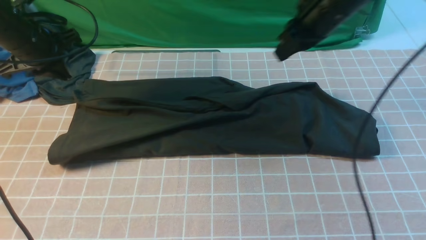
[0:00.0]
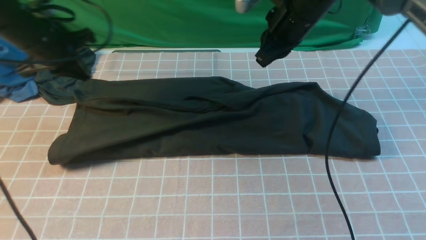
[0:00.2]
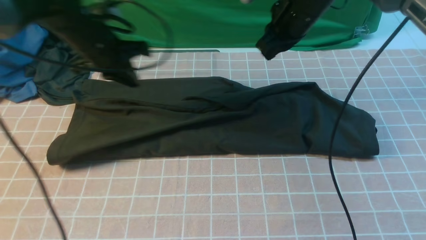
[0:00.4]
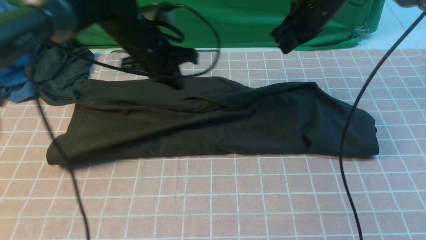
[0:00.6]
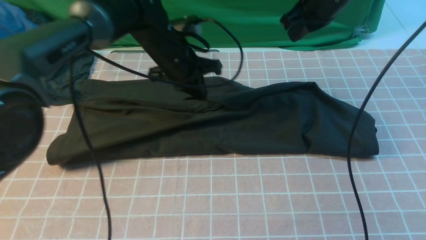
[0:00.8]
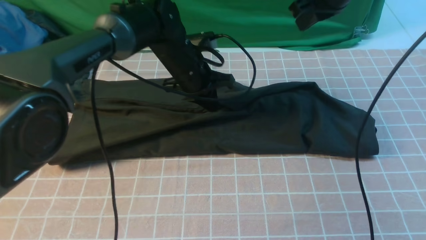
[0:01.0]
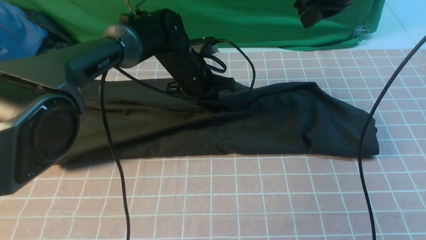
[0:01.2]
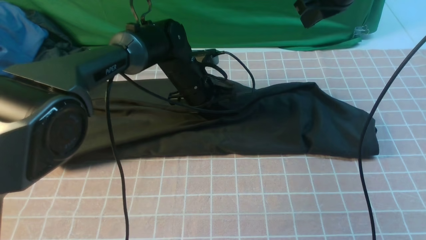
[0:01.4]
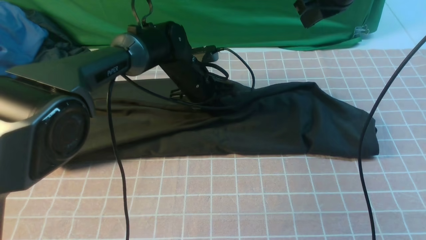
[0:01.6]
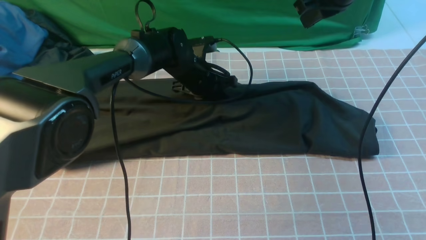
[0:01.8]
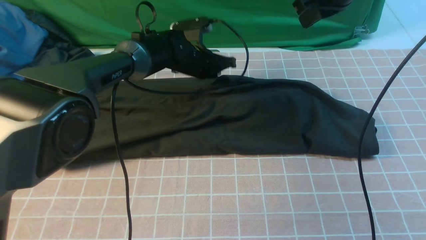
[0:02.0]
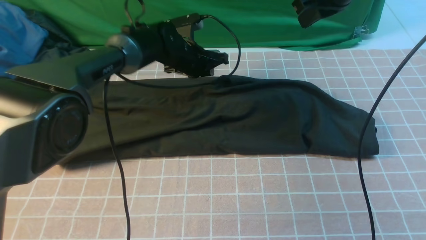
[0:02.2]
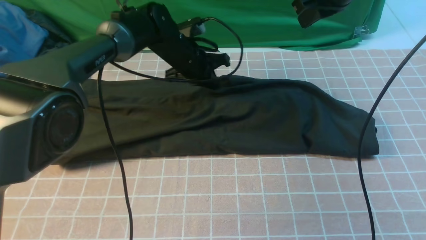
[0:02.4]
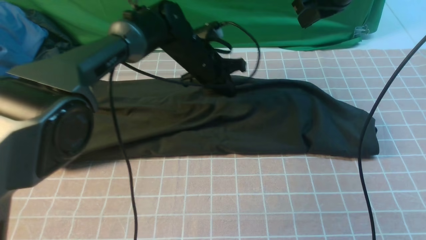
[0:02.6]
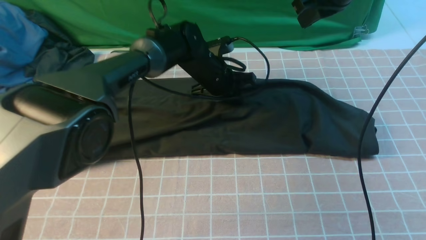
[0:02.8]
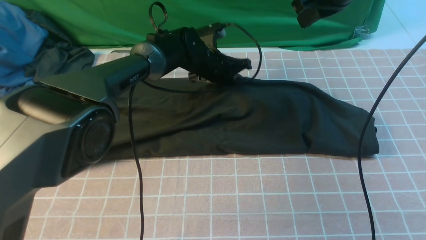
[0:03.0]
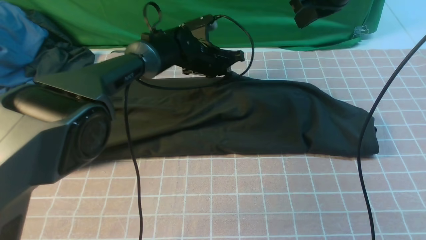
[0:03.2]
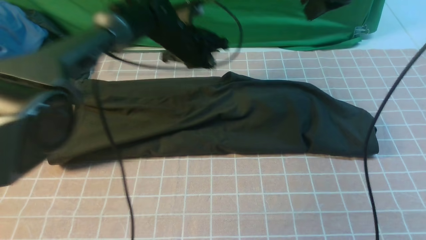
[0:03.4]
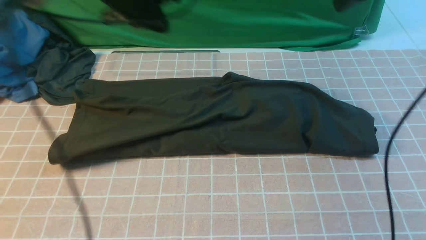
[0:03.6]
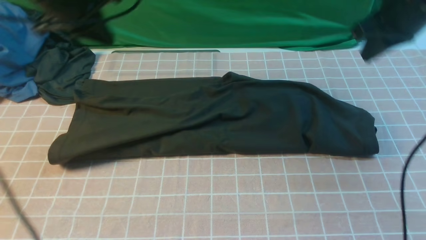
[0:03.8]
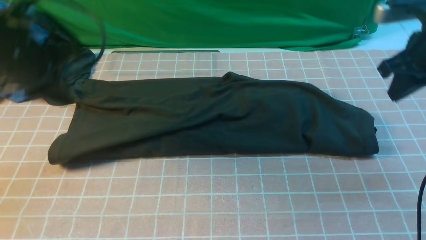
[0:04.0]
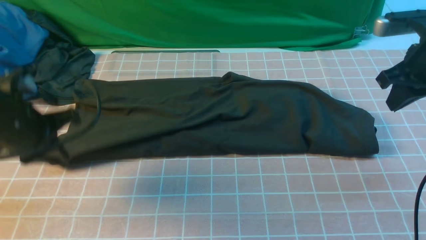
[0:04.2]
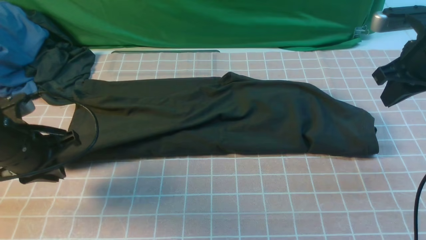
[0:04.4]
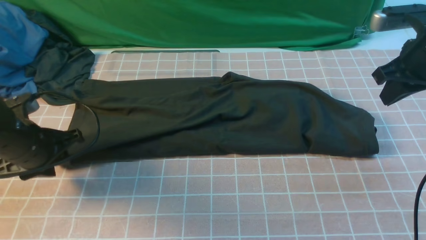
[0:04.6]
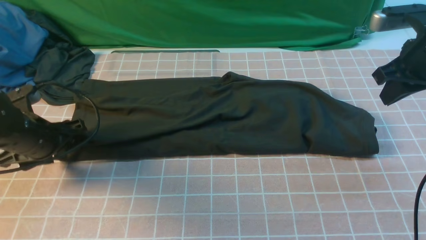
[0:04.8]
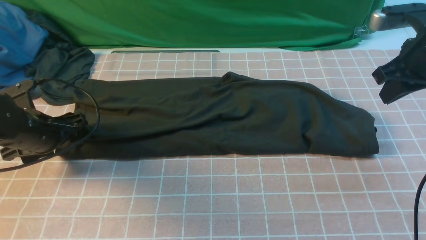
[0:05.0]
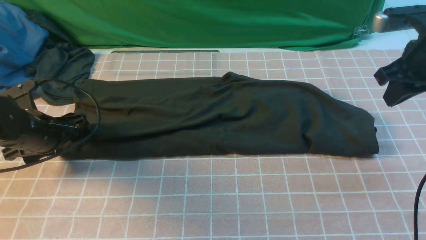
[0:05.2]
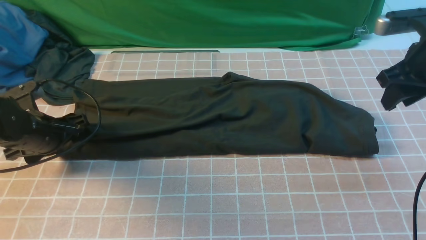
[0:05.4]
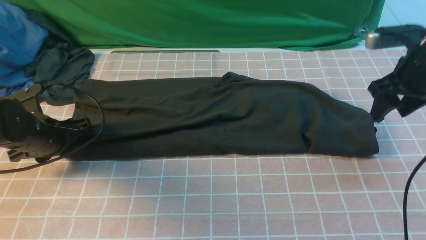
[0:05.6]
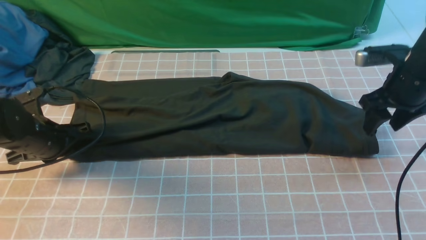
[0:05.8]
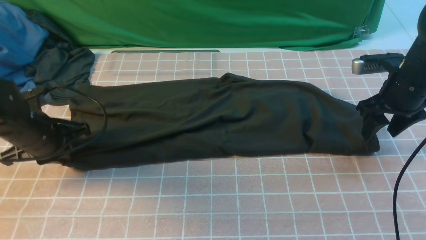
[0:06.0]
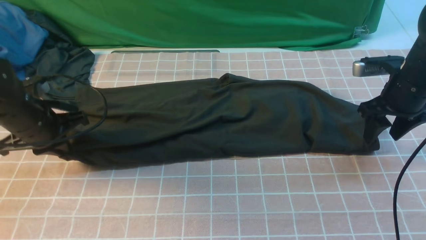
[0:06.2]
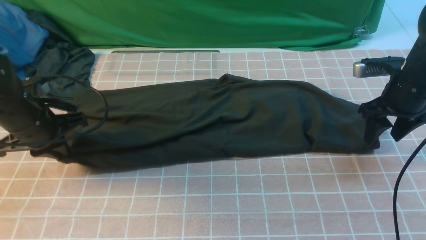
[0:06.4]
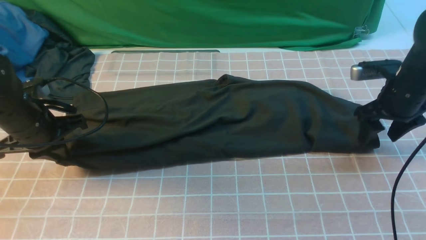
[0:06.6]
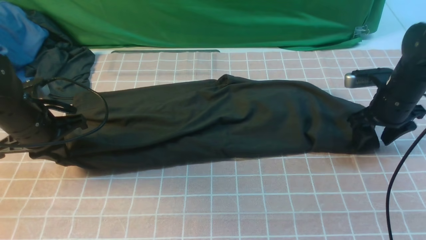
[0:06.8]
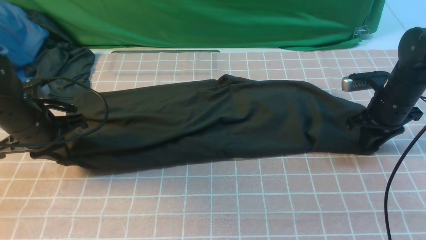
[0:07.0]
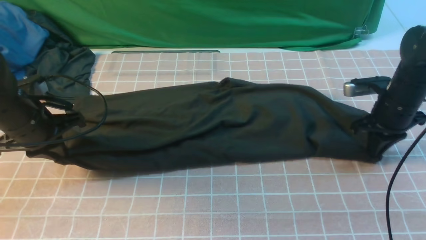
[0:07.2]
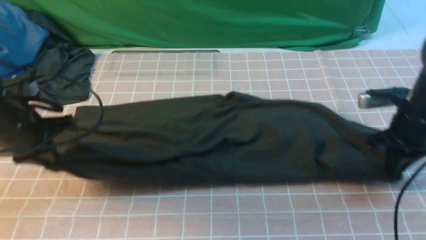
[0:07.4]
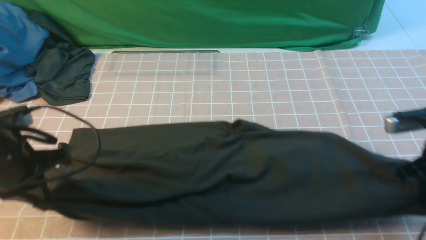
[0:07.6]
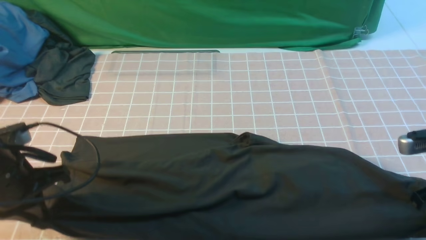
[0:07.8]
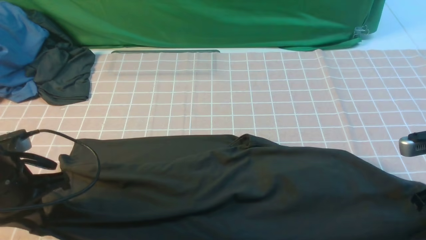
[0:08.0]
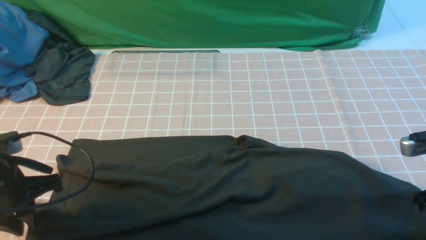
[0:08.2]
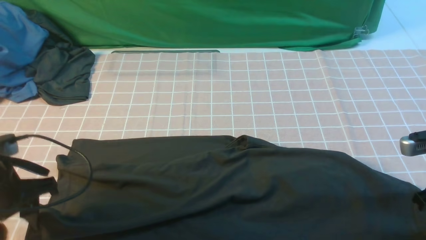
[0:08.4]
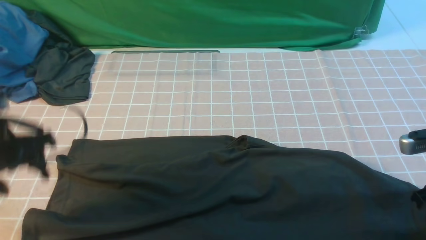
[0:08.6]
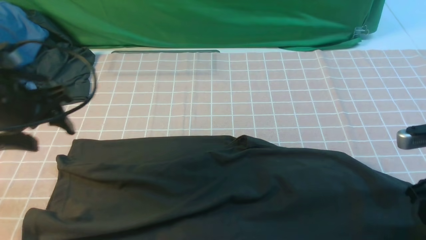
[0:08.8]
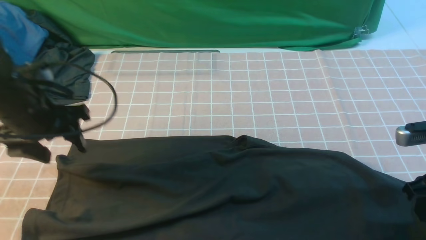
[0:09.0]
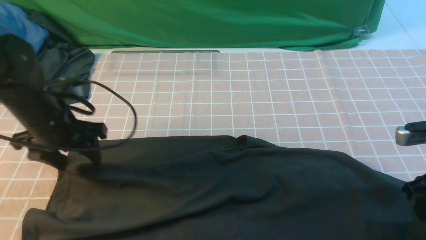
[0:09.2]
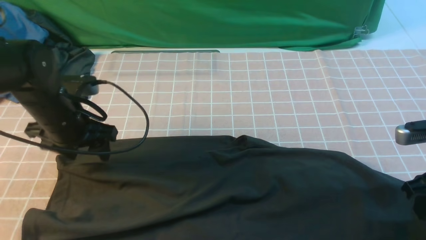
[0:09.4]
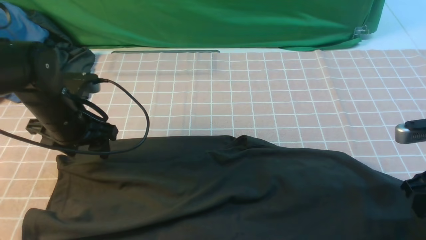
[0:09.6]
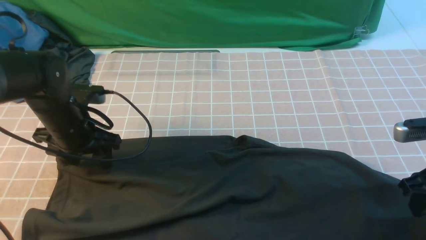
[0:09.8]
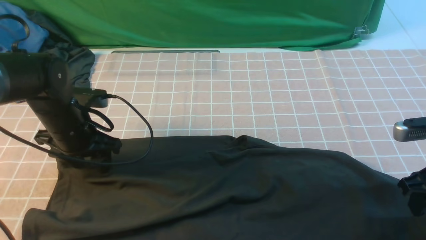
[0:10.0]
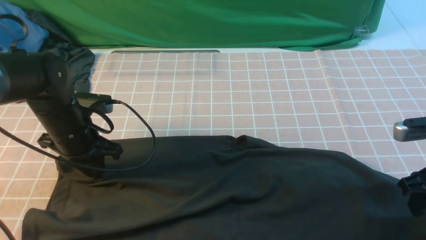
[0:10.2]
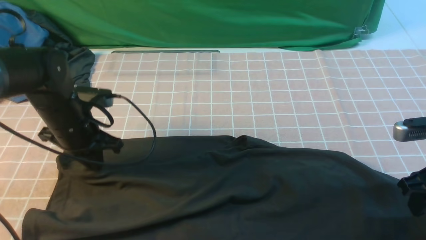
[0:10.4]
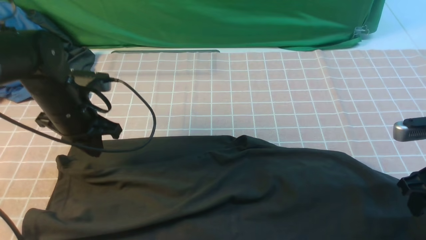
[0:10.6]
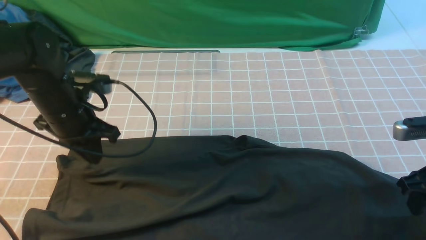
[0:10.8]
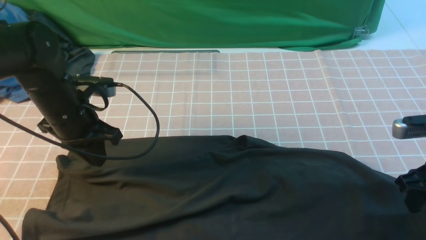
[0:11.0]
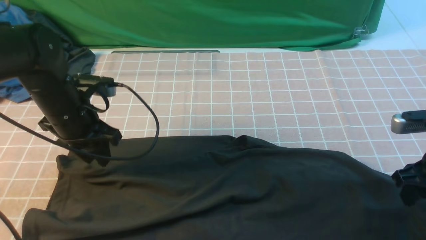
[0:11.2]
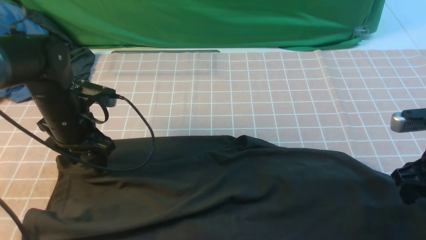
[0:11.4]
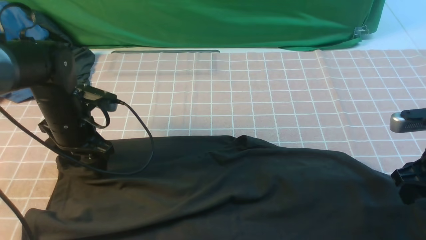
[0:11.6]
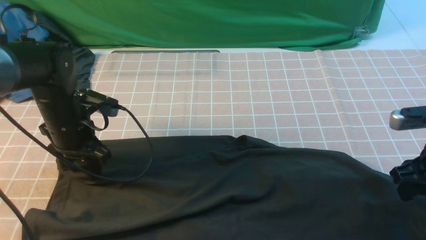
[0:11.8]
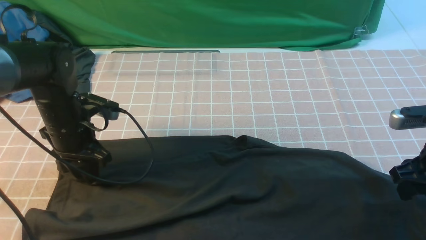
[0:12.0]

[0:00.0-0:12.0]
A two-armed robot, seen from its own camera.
0:00.0 to 0:01.6: The right gripper moves about 5 cm. The left gripper travels to the right and downward by some 25 cm.
0:01.6 to 0:03.0: The grippers make only small movements.
0:03.0 to 0:04.4: The right gripper shifts some 15 cm to the right, backward and downward; the left gripper heads to the left and backward, covering roughly 35 cm.
0:04.4 to 0:06.0: The right gripper travels downward by approximately 10 cm, and opens its fingers. Meanwhile the left gripper ends up approximately 5 cm from where it was, and opens, then closes once more.
0:06.0 to 0:07.6: The left gripper moves backward, about 5 cm; the right gripper goes approximately 10 cm backward, and closes.
0:07.6 to 0:09.0: The right gripper opens its fingers, while the left gripper is displaced forward by approximately 5 cm, and opens.
0:09.0 to 0:10.4: The left gripper is displaced downward by roughly 5 cm, and closes its fingers.
0:10.4 to 0:12.0: The left gripper opens.

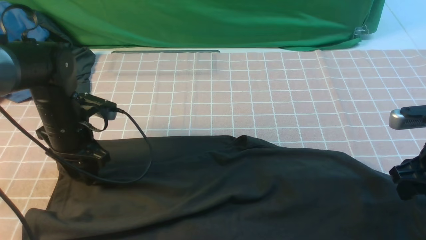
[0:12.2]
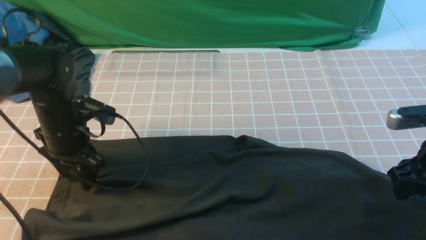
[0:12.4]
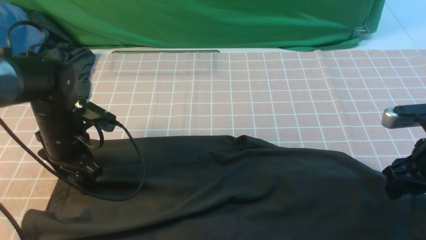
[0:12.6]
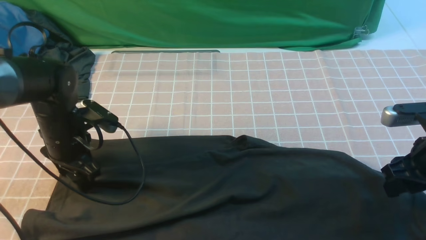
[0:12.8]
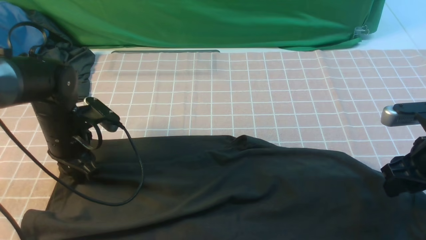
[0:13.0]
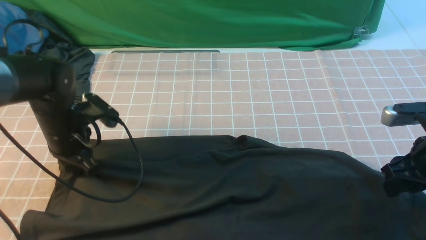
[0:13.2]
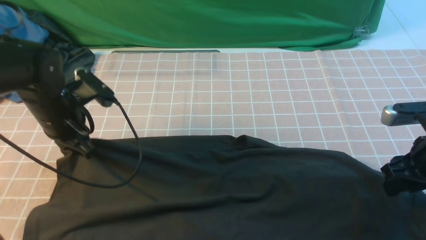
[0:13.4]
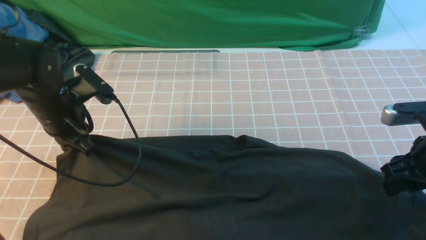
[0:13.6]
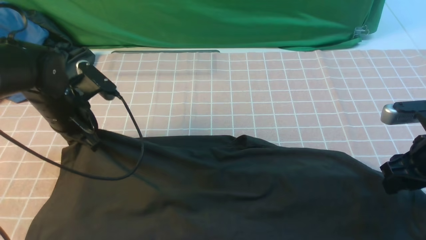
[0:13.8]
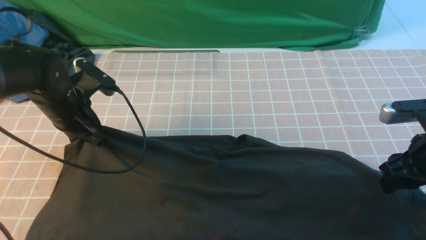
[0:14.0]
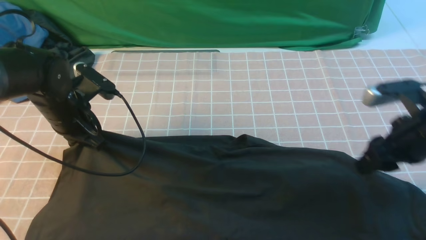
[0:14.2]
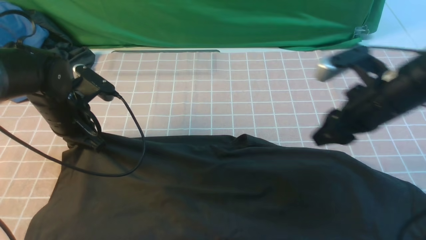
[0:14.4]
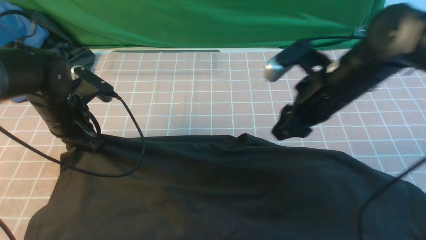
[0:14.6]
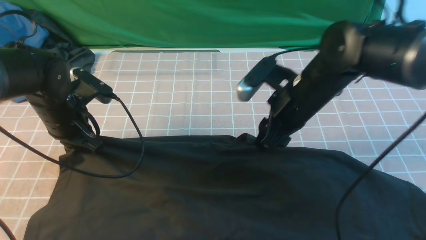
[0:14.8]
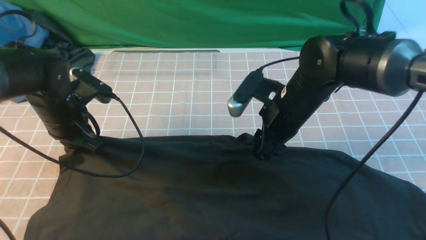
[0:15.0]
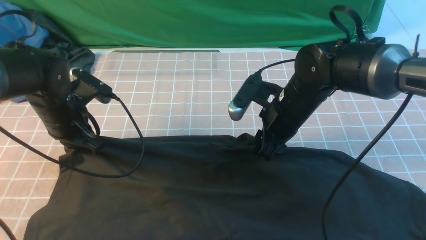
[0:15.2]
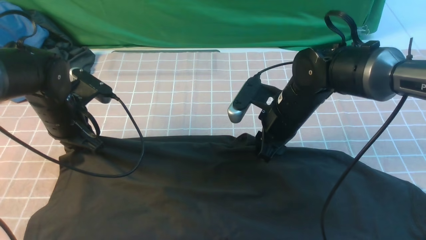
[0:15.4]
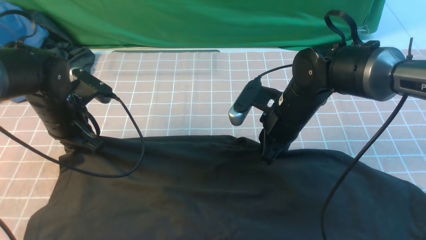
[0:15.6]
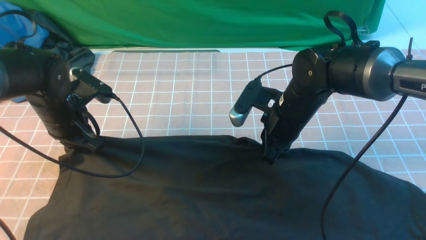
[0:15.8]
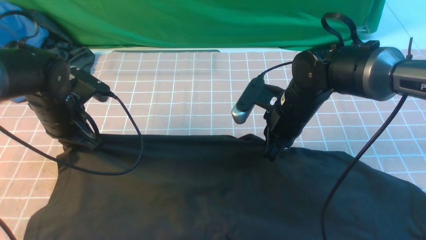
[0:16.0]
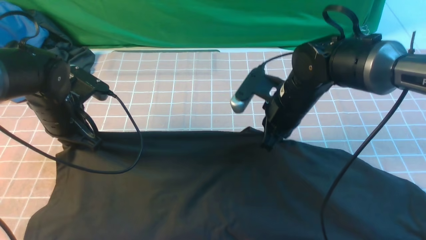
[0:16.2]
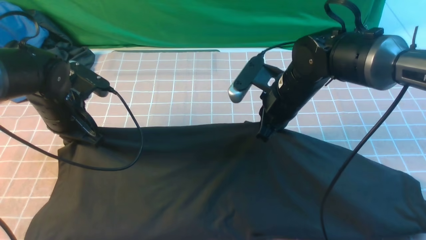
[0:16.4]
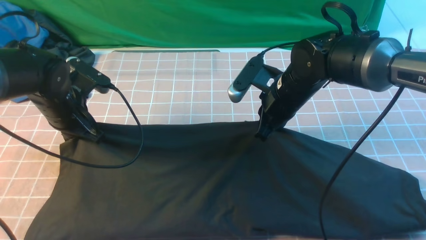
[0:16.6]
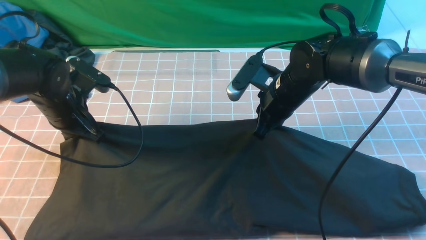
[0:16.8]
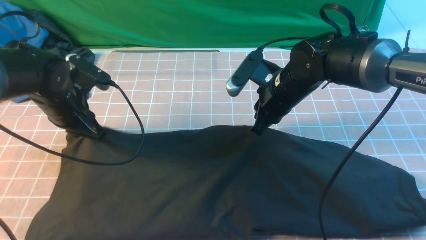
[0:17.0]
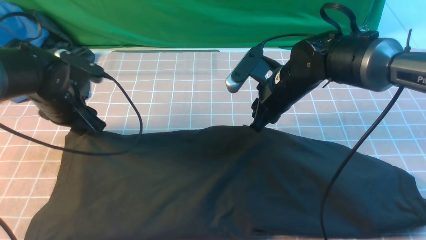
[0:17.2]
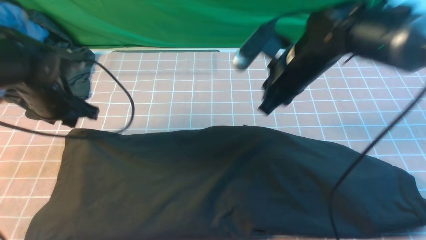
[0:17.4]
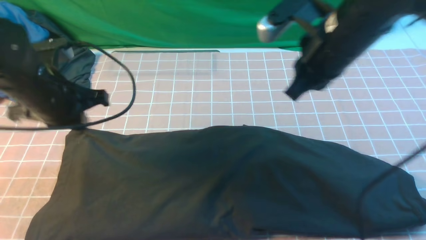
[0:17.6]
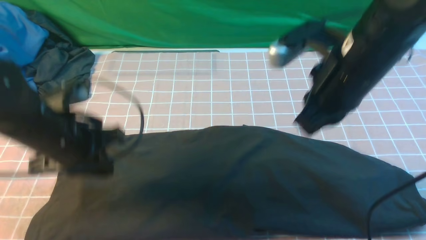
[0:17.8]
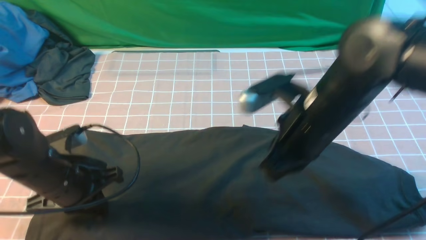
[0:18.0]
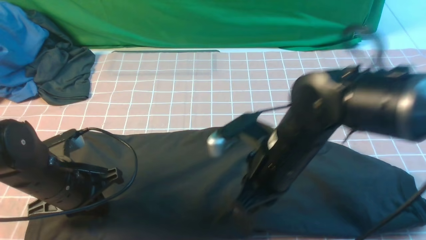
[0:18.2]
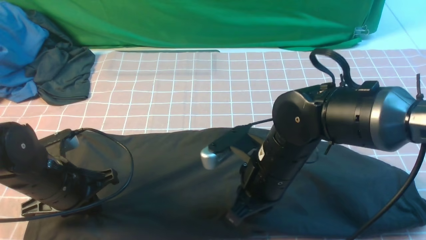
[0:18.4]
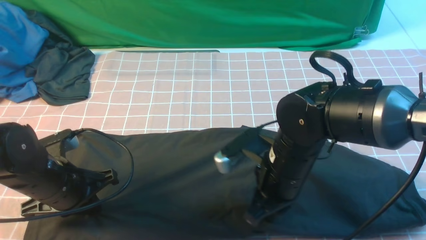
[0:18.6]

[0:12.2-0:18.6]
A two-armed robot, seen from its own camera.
0:12.2 to 0:13.8: The left gripper closes up.
0:13.8 to 0:15.4: The right gripper shifts roughly 20 cm to the left and forward.
0:15.4 to 0:17.0: The grippers stay close to where they were, moving slightly.
0:17.0 to 0:18.6: The grippers both shift backward by about 15 cm. The left gripper closes up.
